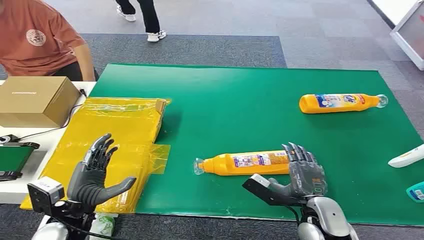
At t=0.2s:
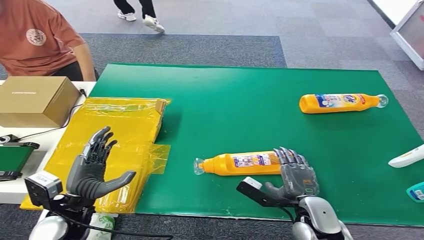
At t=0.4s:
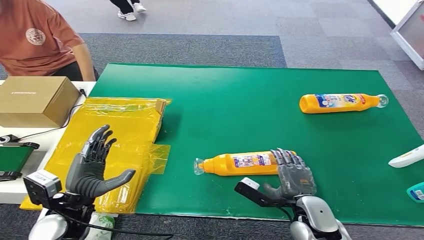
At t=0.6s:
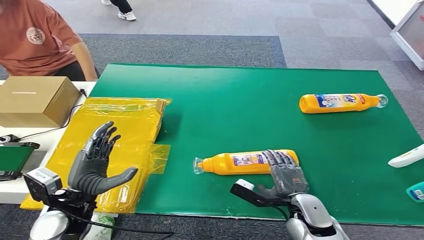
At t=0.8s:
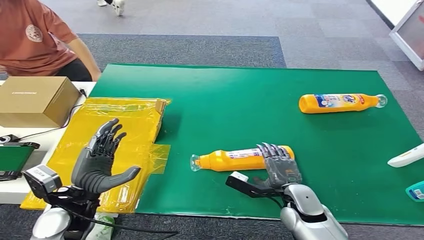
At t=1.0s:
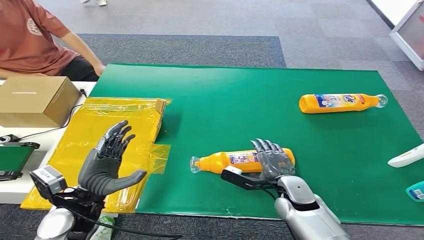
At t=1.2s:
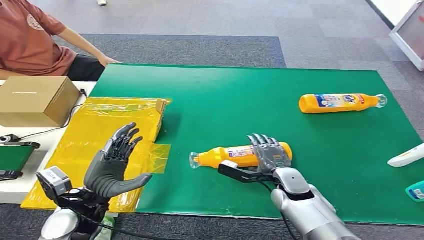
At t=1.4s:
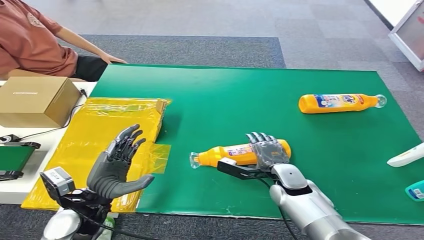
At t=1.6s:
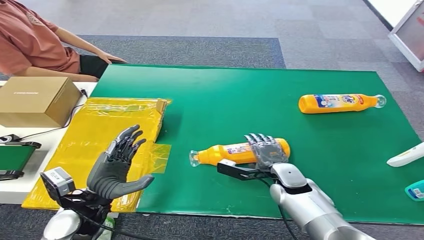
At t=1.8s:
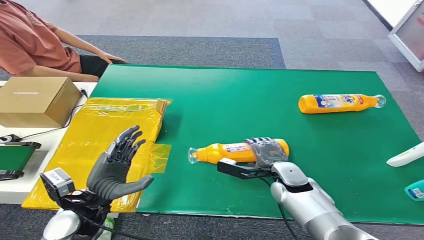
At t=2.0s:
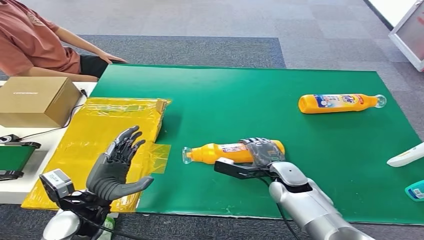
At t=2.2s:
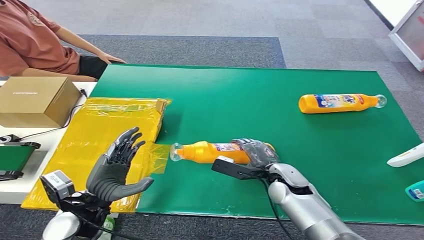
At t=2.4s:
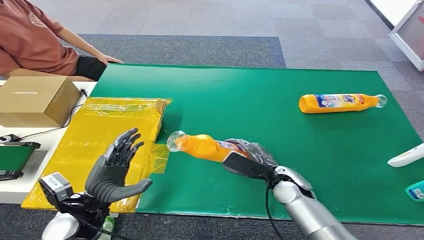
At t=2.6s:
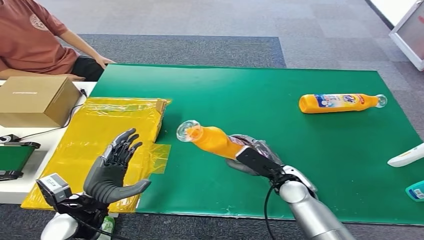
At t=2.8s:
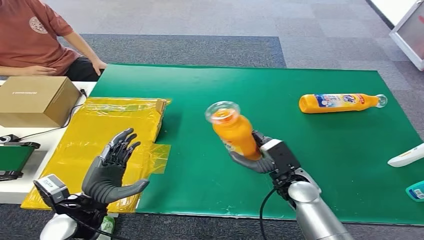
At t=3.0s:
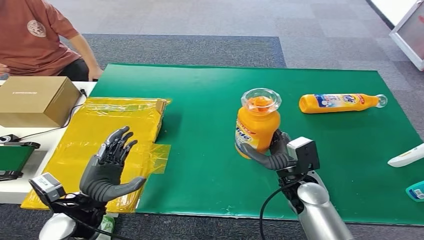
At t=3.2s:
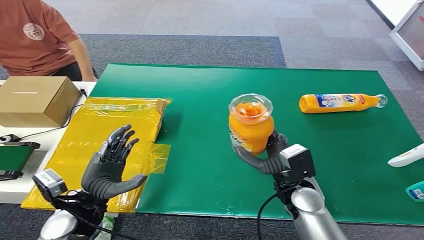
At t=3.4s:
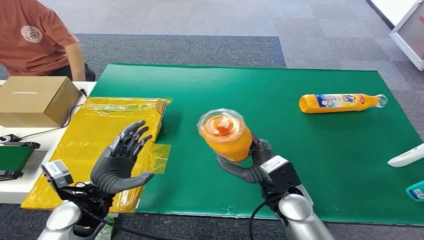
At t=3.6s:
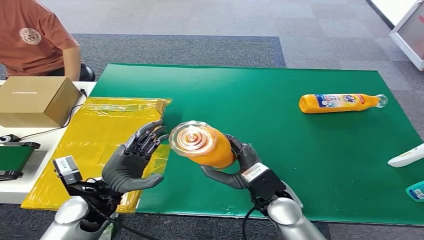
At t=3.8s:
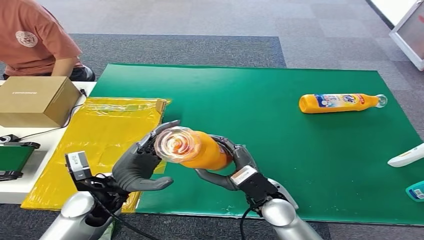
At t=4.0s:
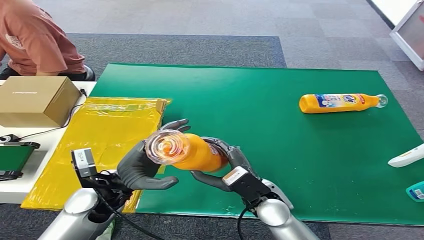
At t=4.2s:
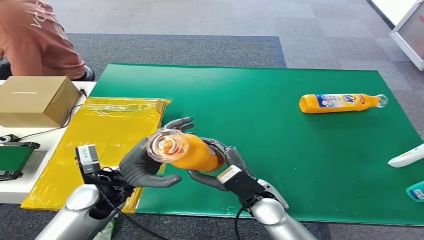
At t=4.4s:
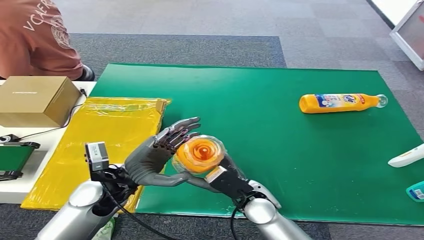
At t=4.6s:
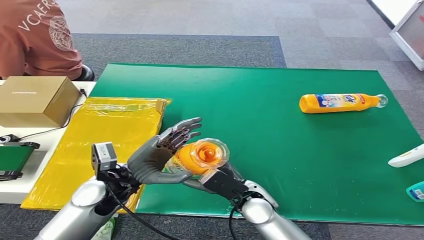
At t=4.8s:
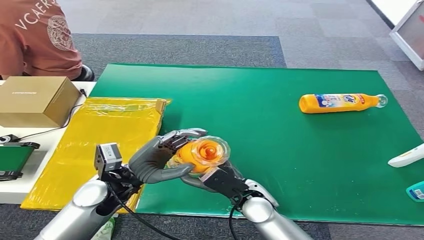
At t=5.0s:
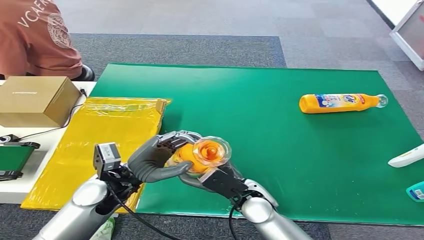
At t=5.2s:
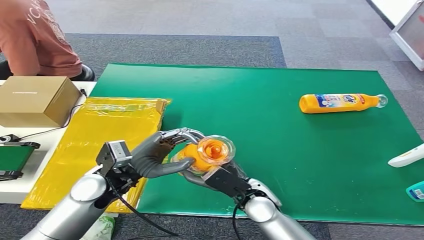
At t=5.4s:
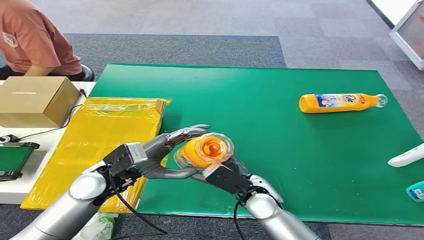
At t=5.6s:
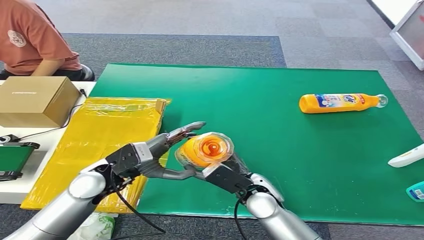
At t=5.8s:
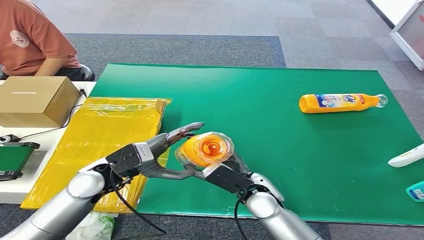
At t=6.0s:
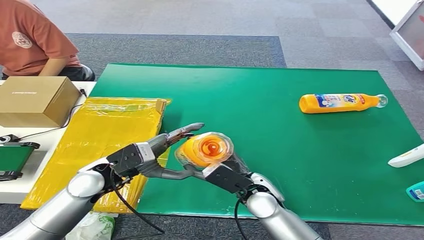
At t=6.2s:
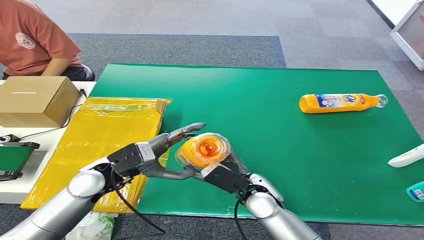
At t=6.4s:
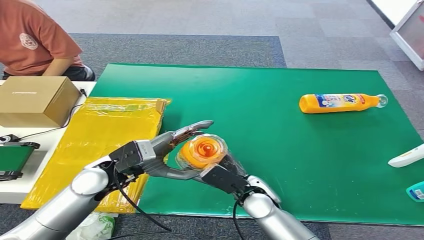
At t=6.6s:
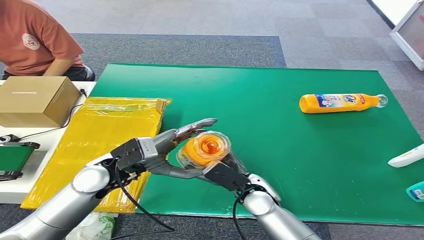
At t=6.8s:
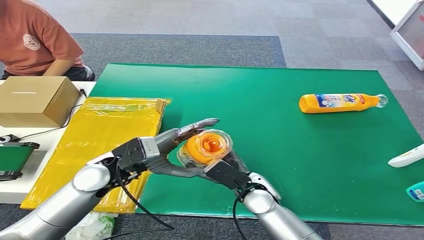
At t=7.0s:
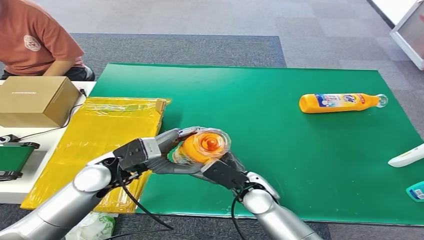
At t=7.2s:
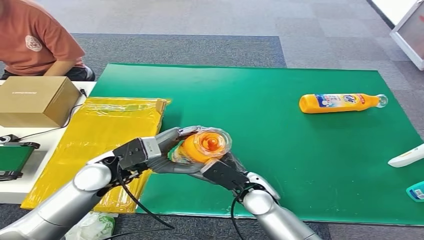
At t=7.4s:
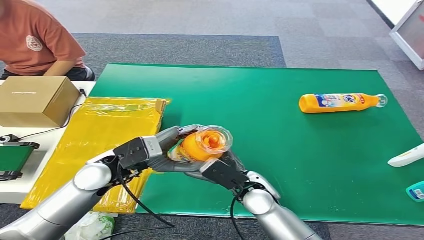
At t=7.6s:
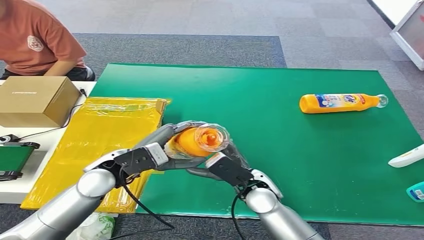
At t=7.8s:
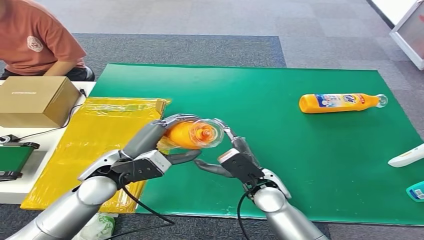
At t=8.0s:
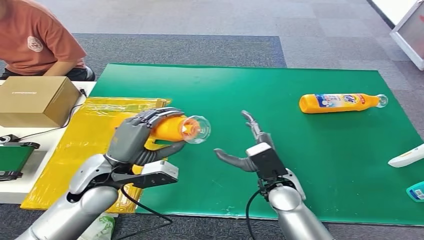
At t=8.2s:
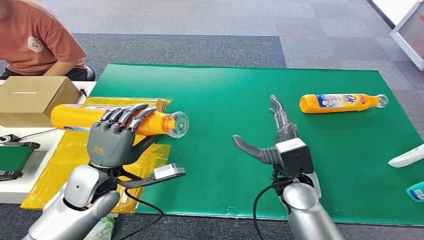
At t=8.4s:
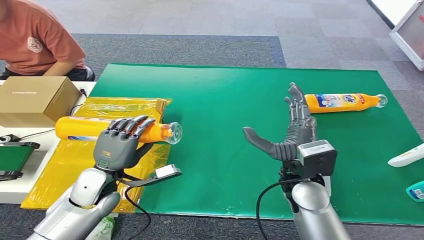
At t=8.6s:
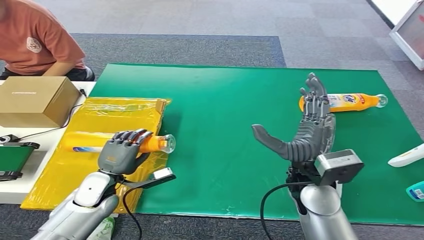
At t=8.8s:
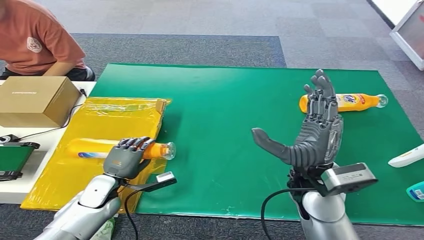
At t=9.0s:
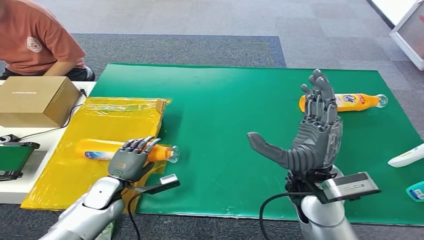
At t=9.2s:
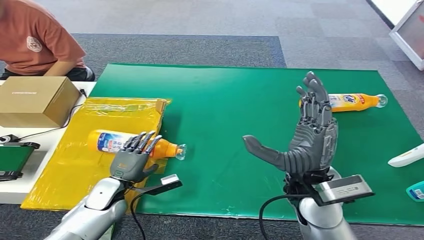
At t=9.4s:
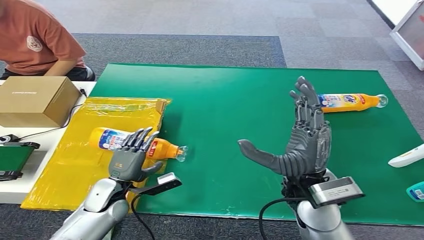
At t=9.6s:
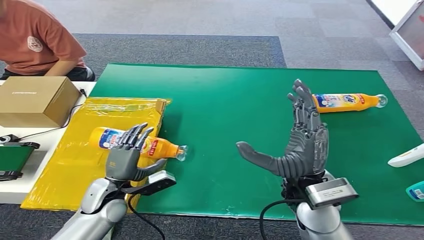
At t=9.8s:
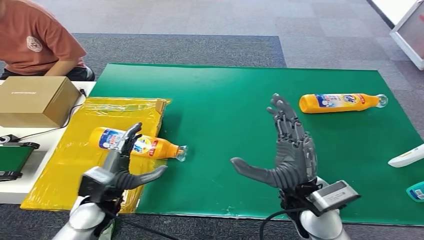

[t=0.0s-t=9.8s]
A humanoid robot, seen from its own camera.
Step, t=0.0s to t=2.8s: Pick up the bottle from the table.
Step, t=3.0s to t=9.8s: Turn the bottle to the front side.
t=5.6s to t=7.0s: The hands make only small movements.
t=8.4s to t=9.8s: The right hand ends up about 5 cm from where it was. Meanwhile the left hand moves some 10 cm downward and comes back.

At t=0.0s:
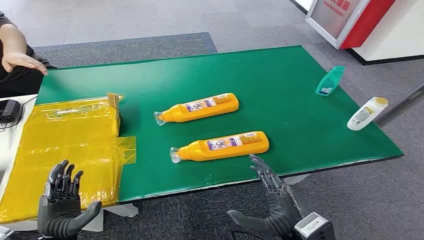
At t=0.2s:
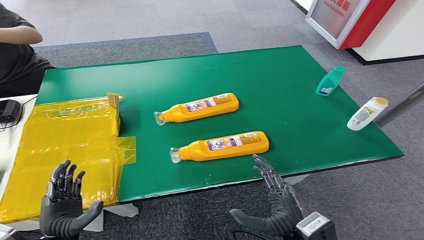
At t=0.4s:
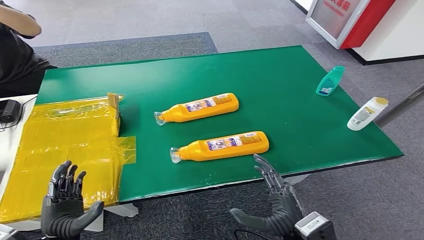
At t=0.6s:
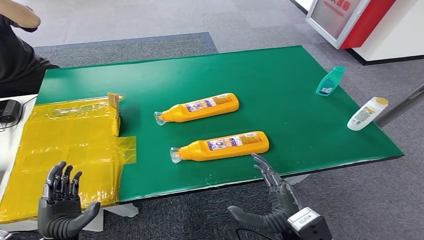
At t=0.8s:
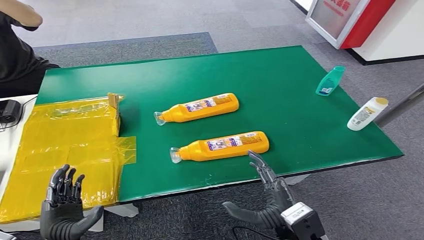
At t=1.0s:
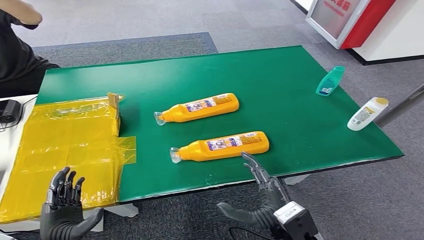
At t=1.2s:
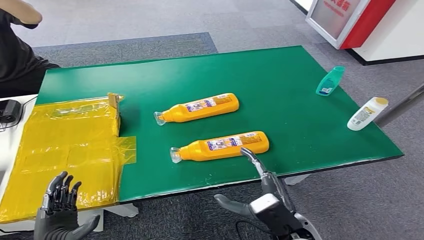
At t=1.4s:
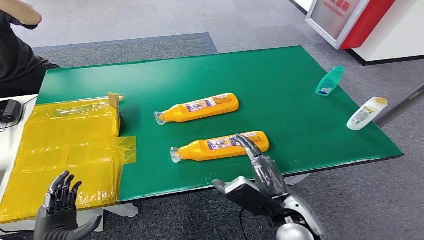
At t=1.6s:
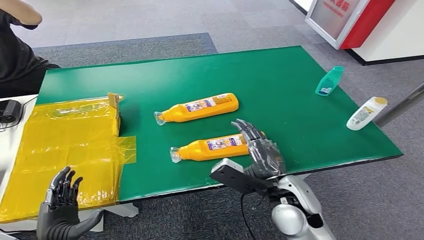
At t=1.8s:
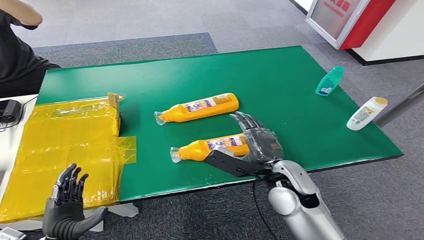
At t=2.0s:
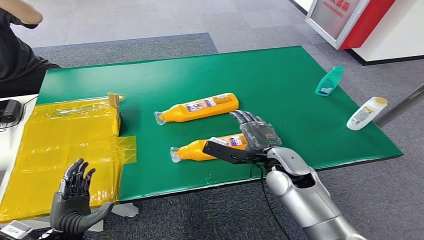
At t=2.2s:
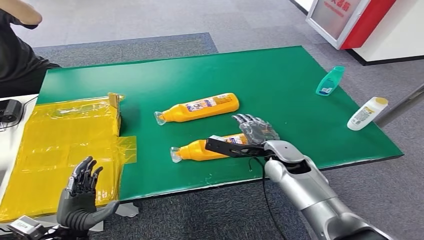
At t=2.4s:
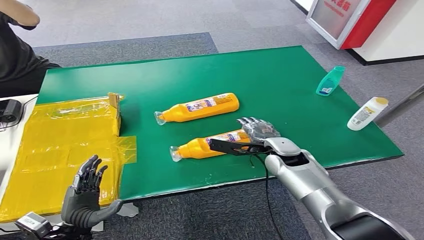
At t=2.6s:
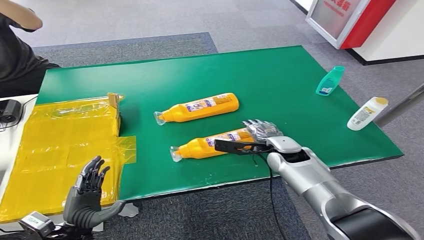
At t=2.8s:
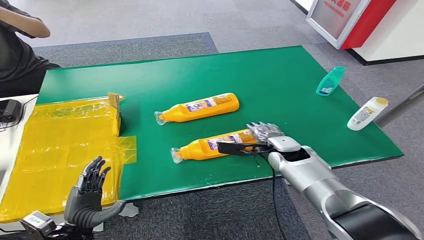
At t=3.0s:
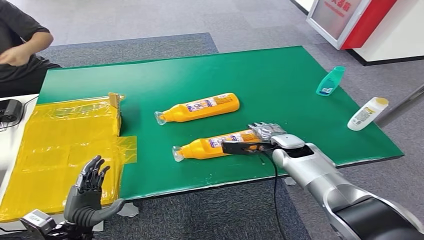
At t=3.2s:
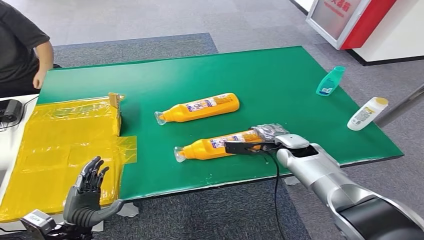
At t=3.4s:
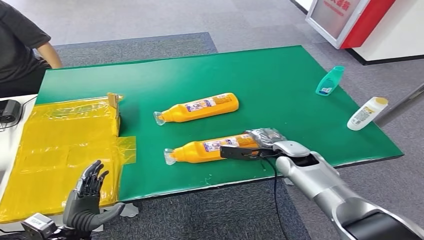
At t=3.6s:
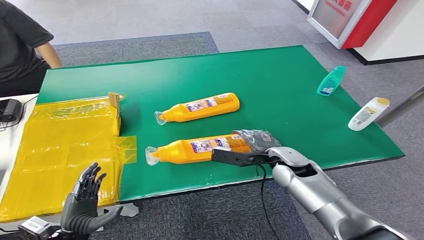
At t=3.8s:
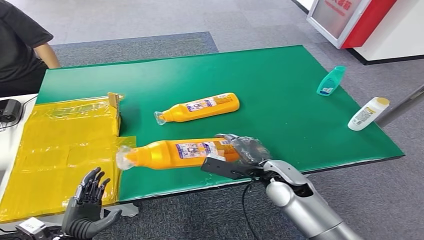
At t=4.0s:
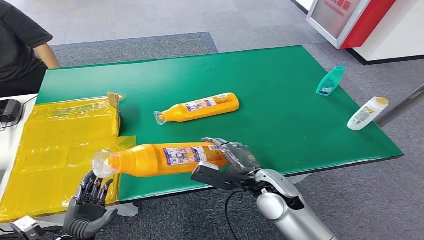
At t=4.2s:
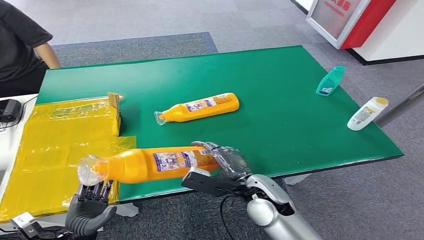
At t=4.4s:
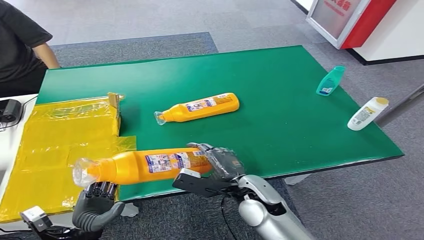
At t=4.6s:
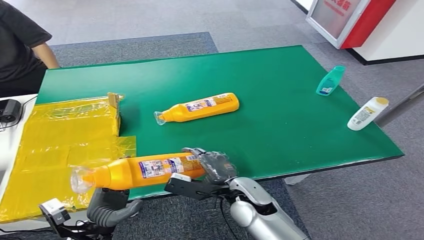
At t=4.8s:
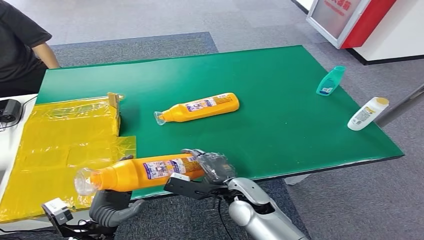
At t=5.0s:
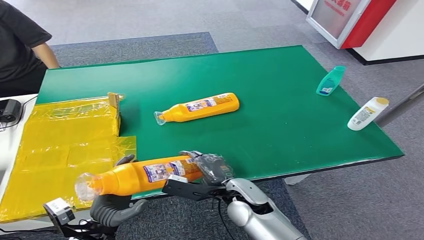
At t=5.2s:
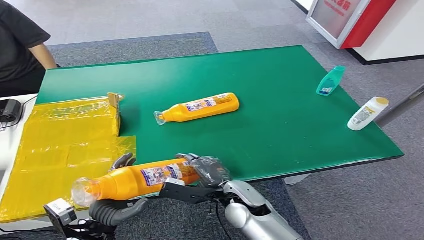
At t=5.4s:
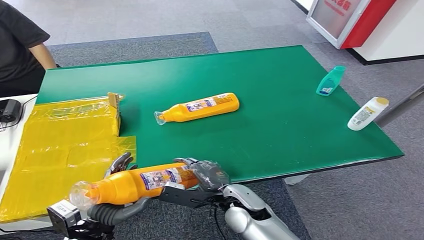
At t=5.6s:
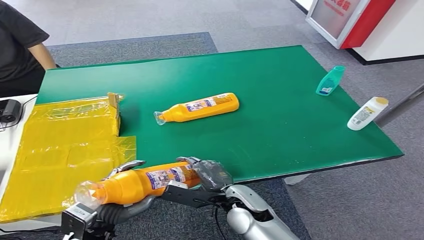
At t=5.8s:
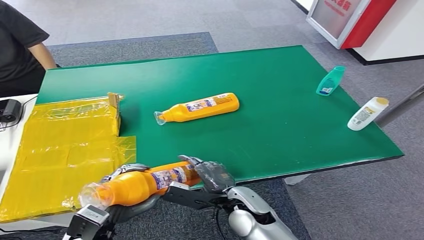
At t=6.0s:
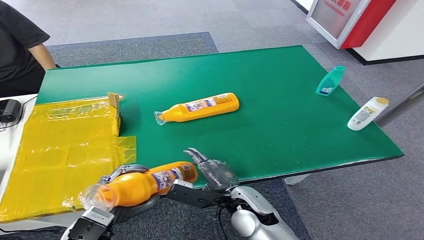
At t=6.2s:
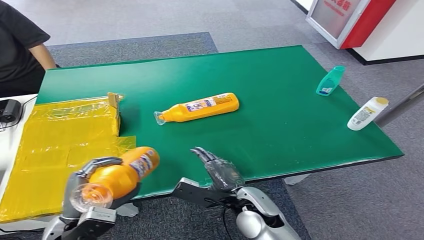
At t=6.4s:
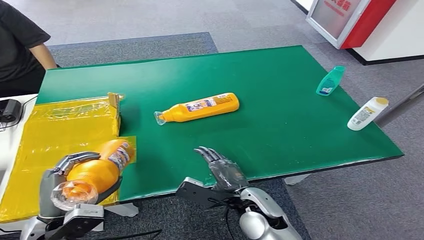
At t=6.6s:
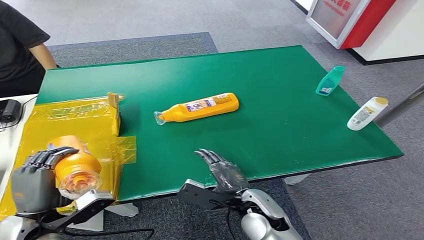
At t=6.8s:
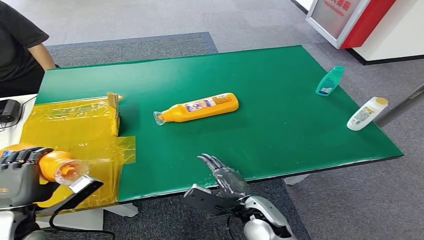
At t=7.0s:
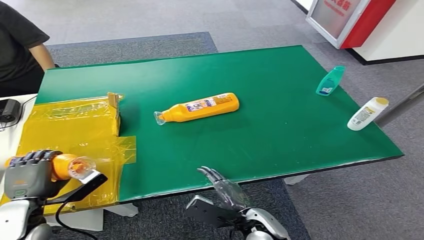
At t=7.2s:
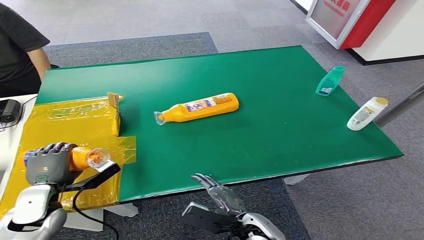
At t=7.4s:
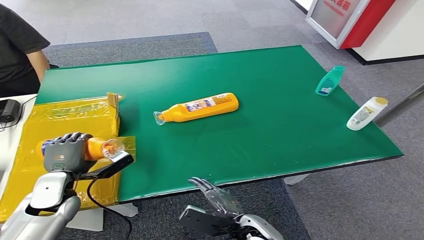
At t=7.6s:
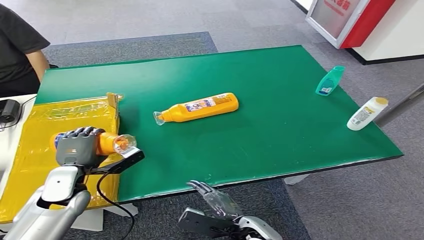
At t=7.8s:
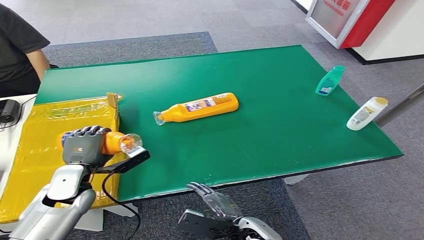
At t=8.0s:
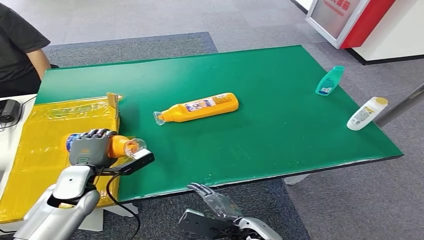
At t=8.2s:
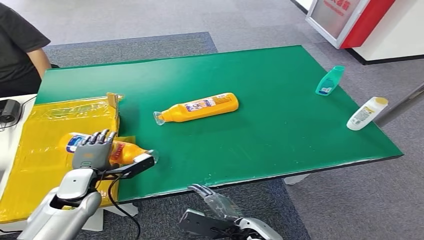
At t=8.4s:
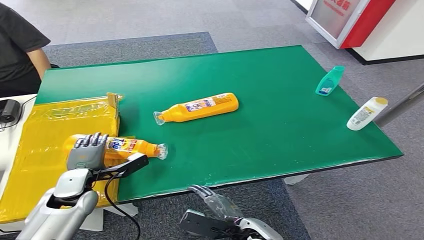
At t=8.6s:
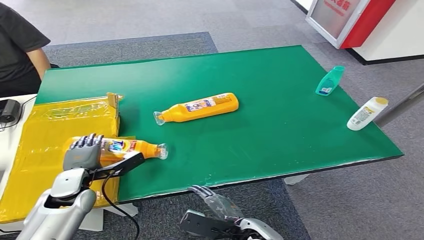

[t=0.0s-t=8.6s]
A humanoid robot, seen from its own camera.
Step, t=0.0s to t=4.0s: Pick up the bottle from the table.
Step, t=4.2s to t=8.6s: Turn the bottle to the front side.
t=1.4s to t=2.8s: The left hand goes about 5 cm forward. Meanwhile the right hand shifts some 20 cm forward.
t=2.8s to t=4.4s: The right hand moves backward and to the left, some 15 cm.
t=4.4s to t=5.8s: The left hand goes some 5 cm upward.
t=5.8s to t=7.2s: The left hand travels to the left and forward by roughly 15 cm. Meanwhile the right hand goes about 5 cm backward.
t=7.2s to t=8.6s: The left hand travels to the right by approximately 5 cm.
